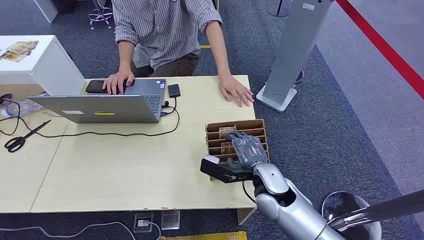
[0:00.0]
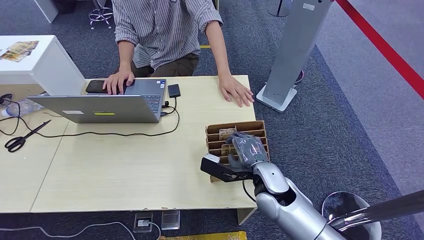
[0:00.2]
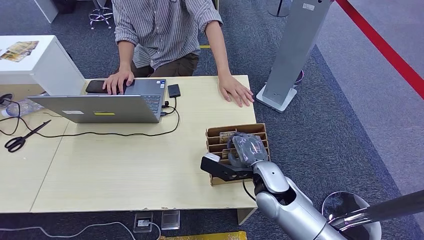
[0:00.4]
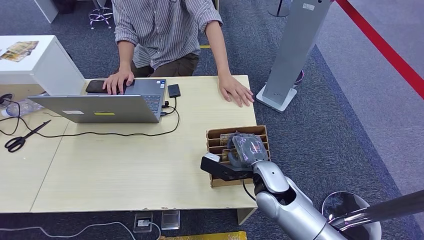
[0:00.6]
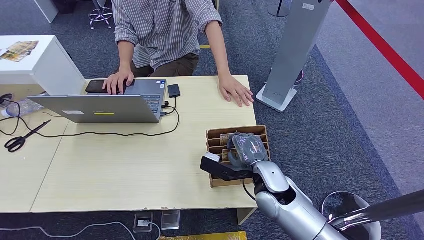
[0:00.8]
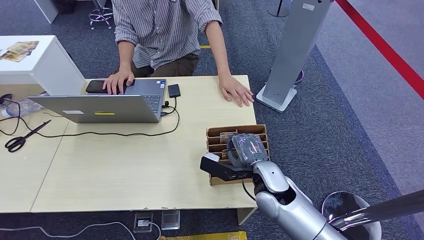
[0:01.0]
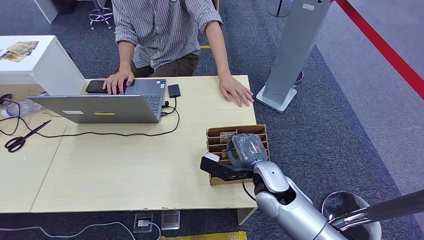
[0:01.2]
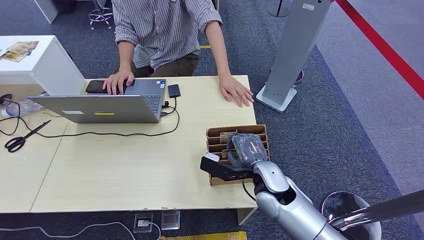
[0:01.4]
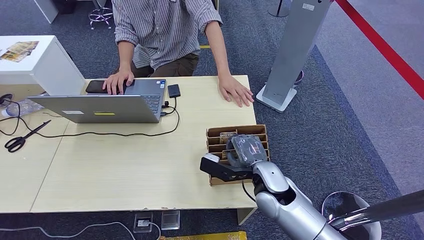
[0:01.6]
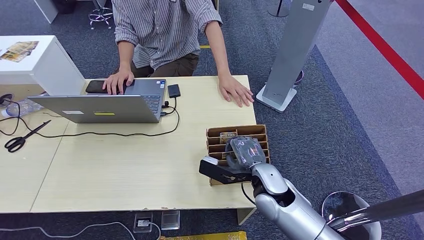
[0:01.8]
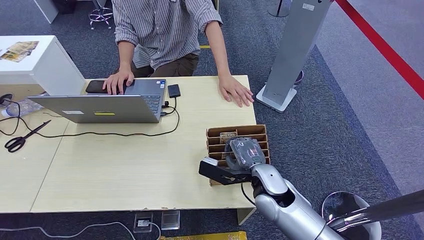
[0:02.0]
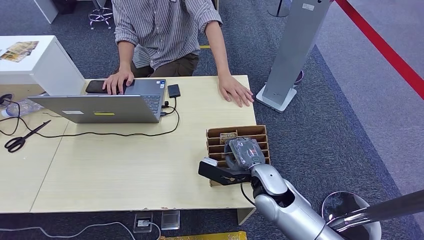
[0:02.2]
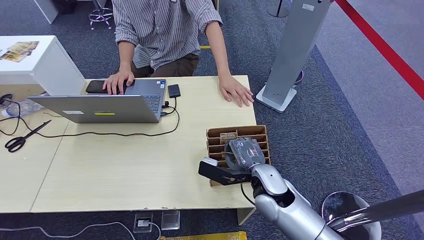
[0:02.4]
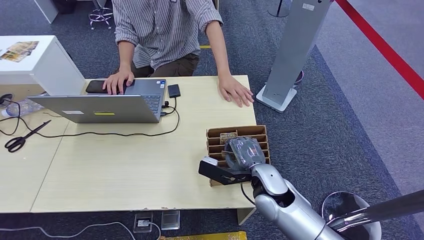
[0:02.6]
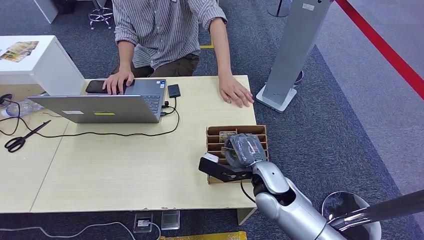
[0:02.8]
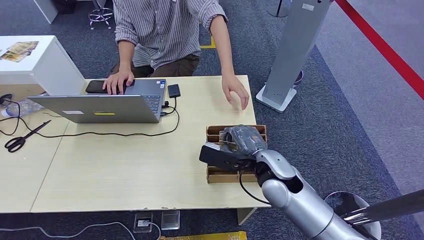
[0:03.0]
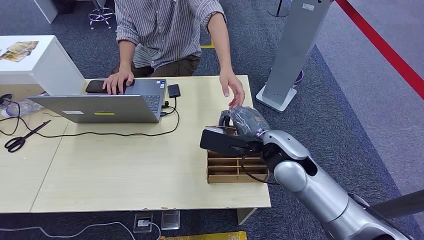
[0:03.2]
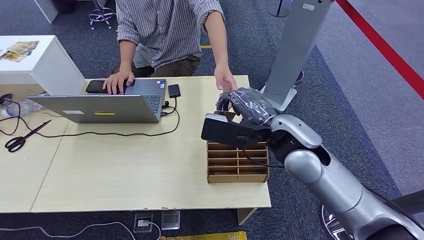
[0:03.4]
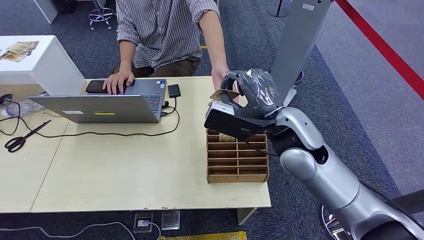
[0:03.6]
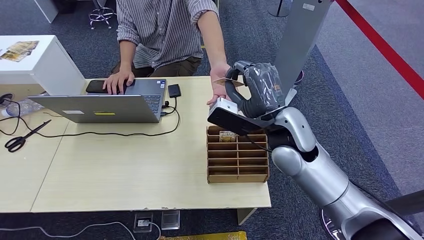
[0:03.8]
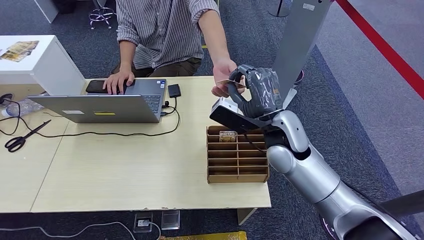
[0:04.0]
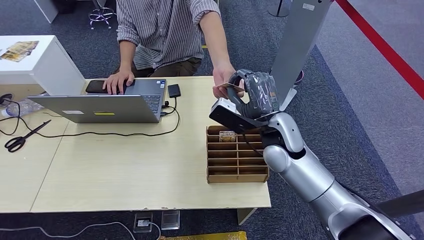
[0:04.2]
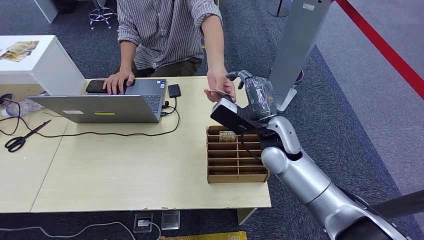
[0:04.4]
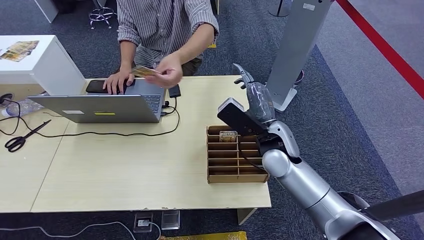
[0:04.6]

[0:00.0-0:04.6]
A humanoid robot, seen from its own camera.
Step, 0:00.0 to 0:03.0: Pick up the key card from the card box.
Step, 0:03.8 to 0:04.6: Hand the key card to the target.
0:01.6 to 0:03.0: The hands stay close to where they were, moving slightly.
0:03.0 to 0:04.6: The right hand is displaced forward by approximately 5 cm, and moves approximately 10 cm upward and comes back.

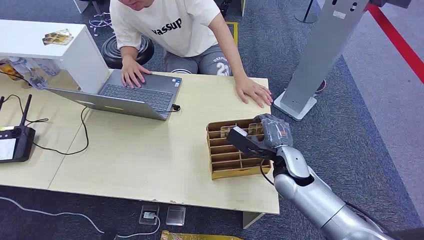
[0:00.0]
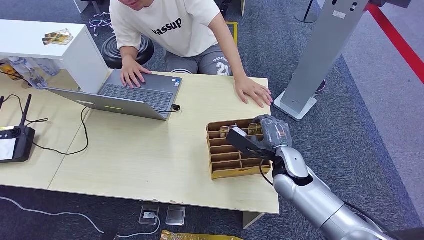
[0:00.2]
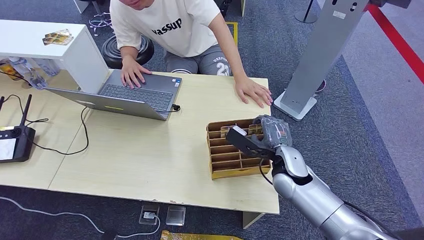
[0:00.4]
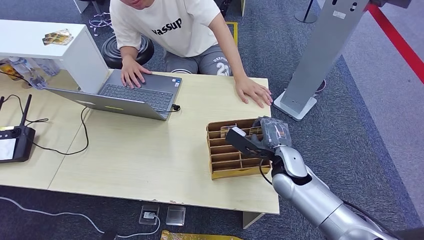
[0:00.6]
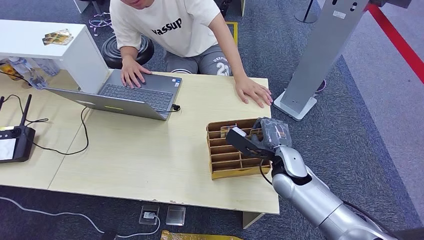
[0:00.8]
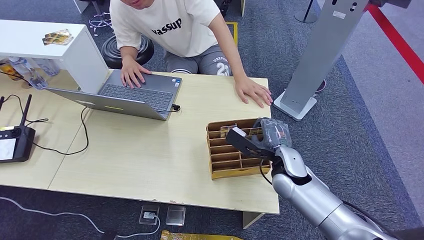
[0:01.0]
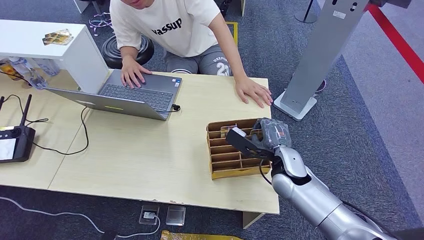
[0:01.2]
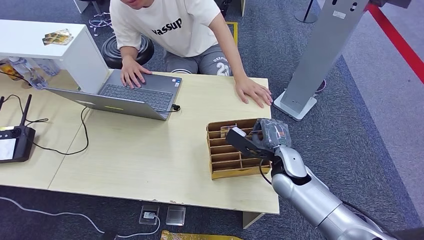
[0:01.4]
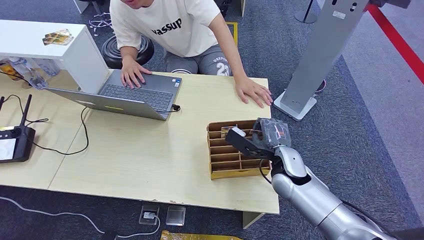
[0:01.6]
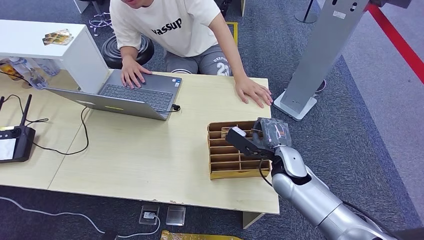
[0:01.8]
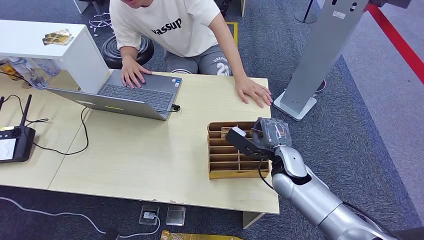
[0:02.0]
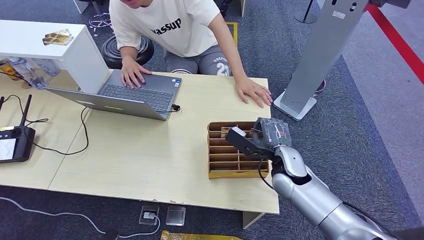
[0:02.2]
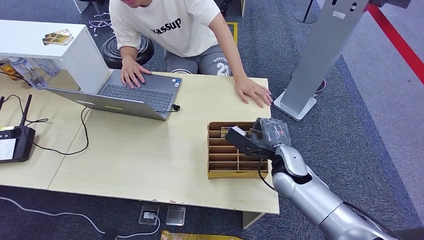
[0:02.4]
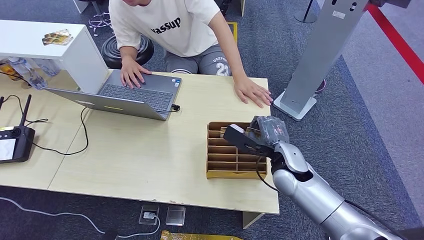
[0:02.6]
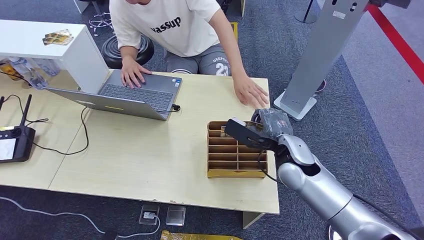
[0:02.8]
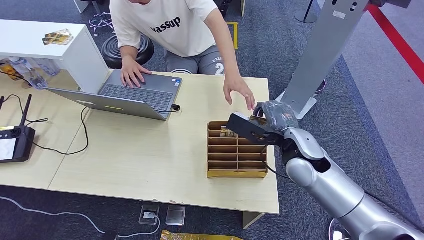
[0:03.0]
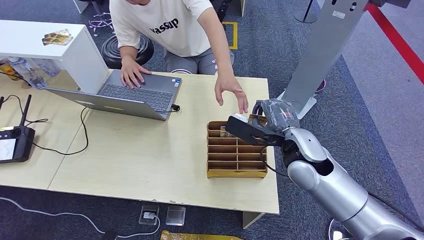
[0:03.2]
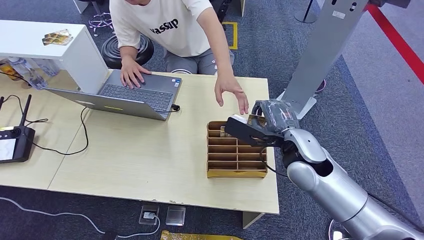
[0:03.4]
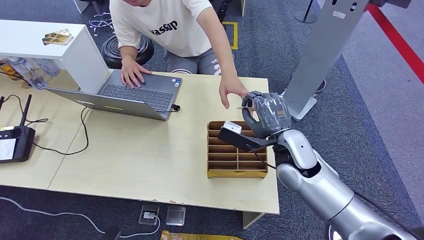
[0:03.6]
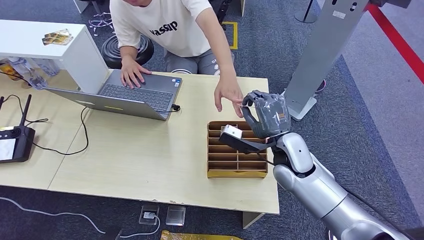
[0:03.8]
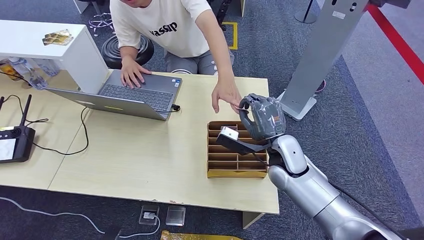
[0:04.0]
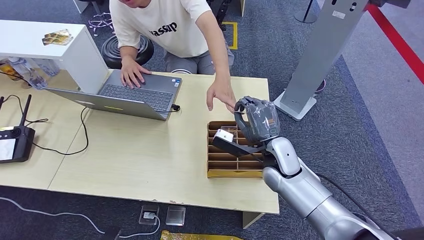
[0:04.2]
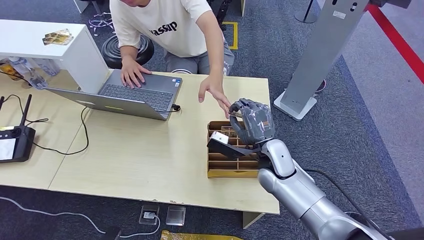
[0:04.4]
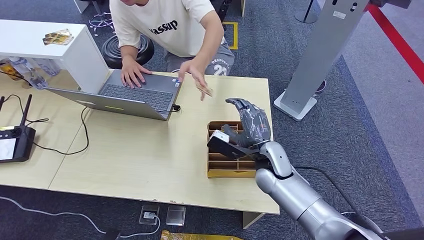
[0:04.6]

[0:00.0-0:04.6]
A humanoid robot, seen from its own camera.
Step, 0:00.0 to 0:02.8: Pick up the key card from the card box.
Step, 0:03.2 to 0:04.6: Hand the key card to the target.
0:01.6 to 0:03.0: The right hand heads upward, covering approximately 10 cm.
0:03.0 to 0:04.6: The right hand is displaced downward by approximately 10 cm.

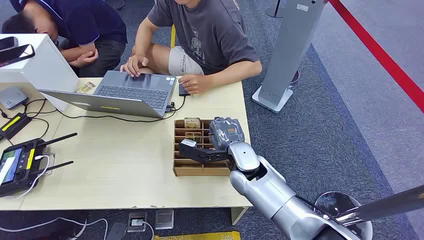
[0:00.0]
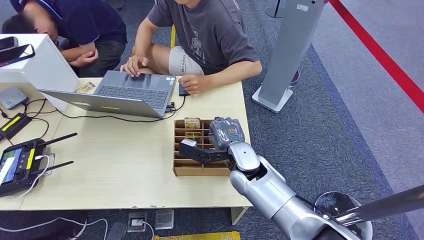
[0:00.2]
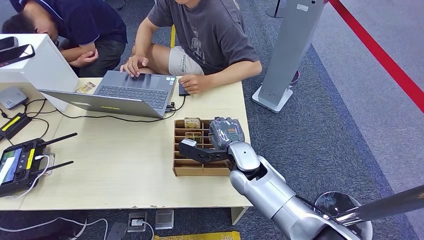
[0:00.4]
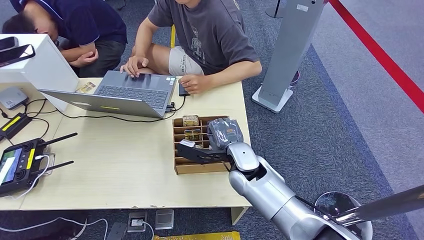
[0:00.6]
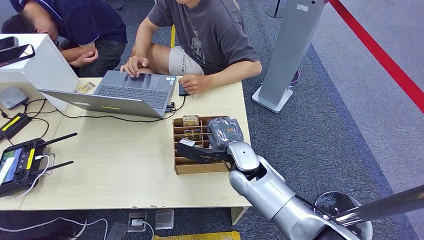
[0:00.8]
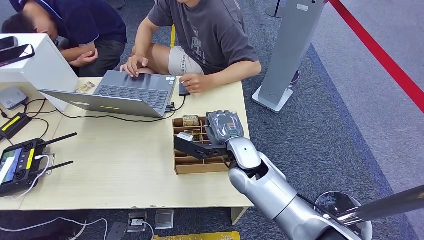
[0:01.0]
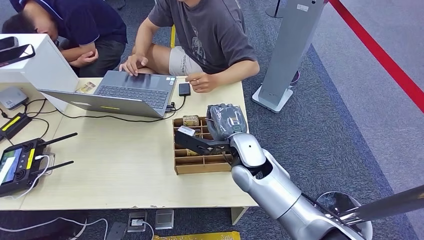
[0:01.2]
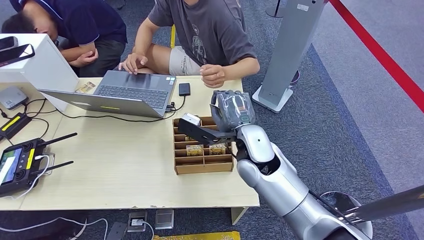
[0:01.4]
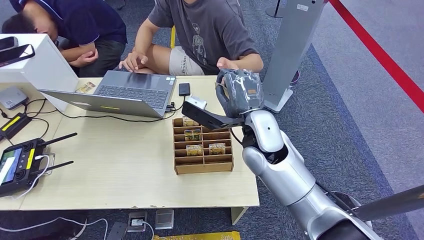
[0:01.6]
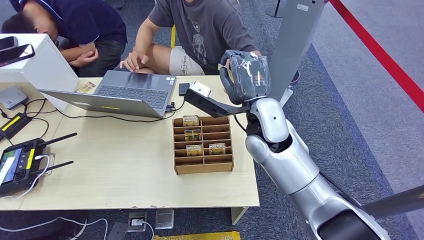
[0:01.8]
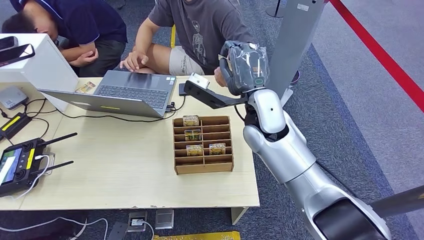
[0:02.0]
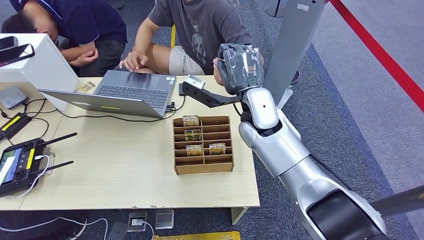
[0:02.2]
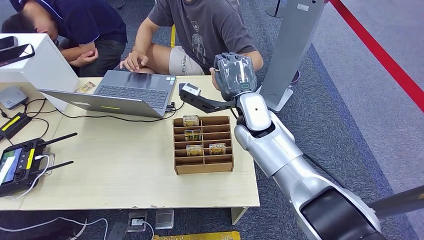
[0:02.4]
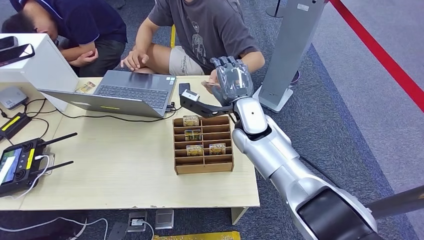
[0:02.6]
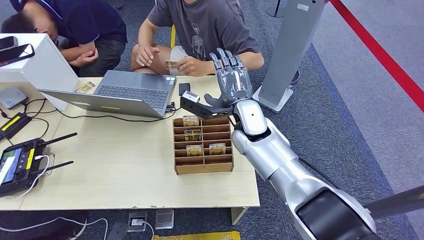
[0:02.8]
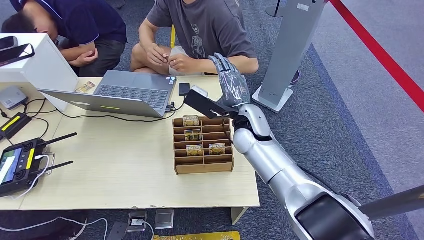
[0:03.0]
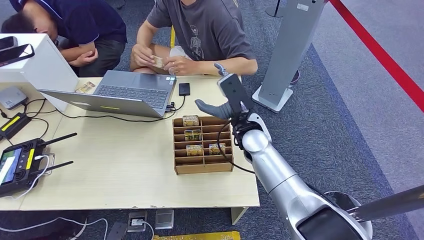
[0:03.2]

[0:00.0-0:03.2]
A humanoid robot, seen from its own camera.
Step, 0:00.0 to 0:01.4: Pick up the key card from the card box.
Step, 0:01.6 to 0:03.2: Hand the key card to the target.
0:01.6 to 0:03.2: The right hand moves downward, approximately 5 cm.
